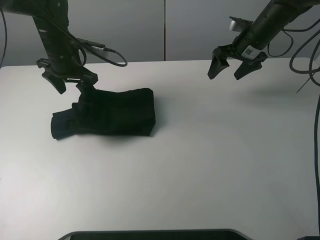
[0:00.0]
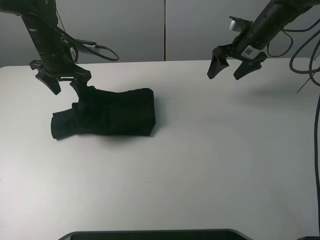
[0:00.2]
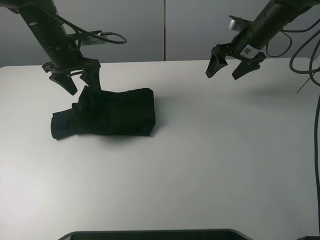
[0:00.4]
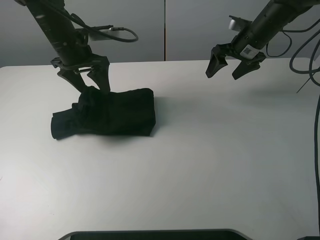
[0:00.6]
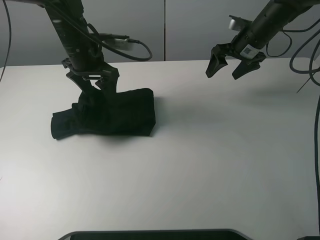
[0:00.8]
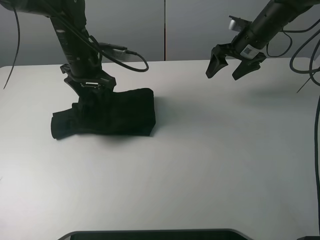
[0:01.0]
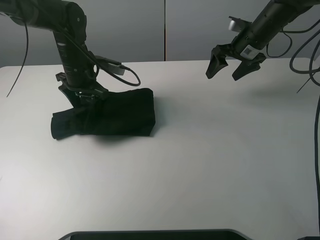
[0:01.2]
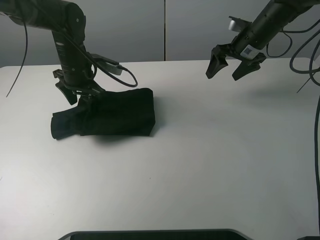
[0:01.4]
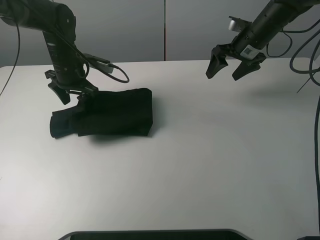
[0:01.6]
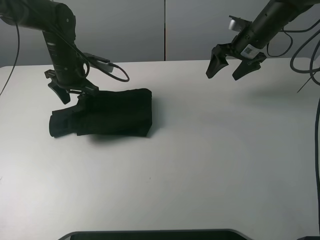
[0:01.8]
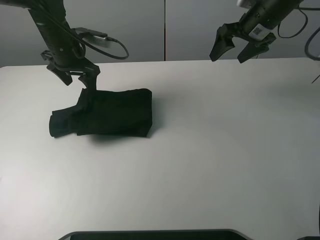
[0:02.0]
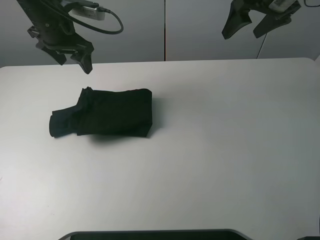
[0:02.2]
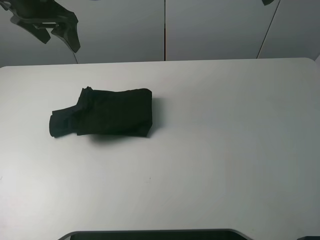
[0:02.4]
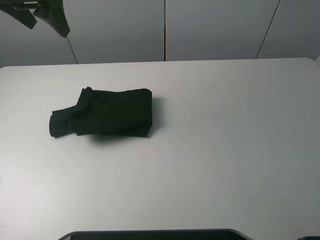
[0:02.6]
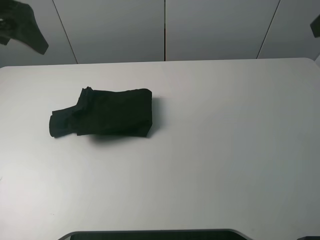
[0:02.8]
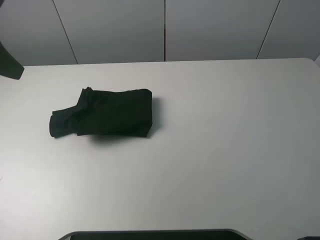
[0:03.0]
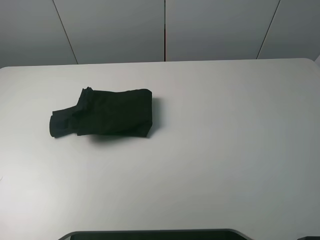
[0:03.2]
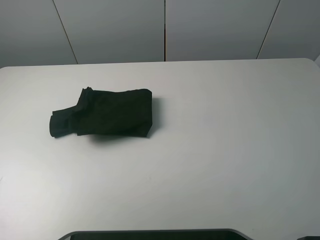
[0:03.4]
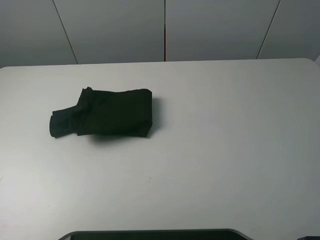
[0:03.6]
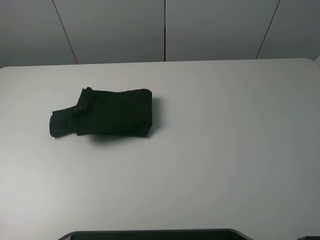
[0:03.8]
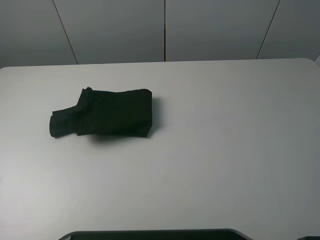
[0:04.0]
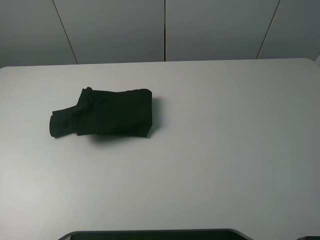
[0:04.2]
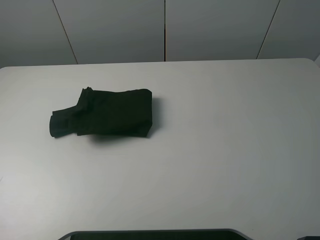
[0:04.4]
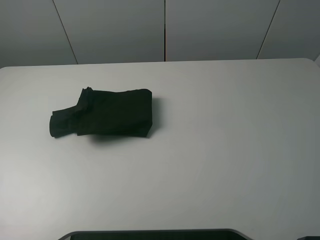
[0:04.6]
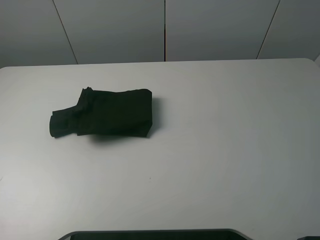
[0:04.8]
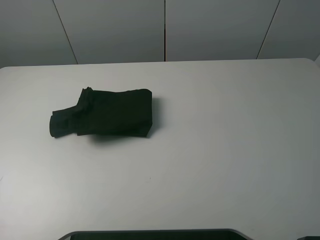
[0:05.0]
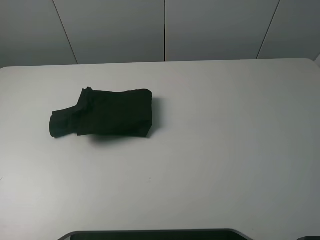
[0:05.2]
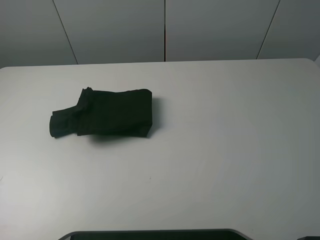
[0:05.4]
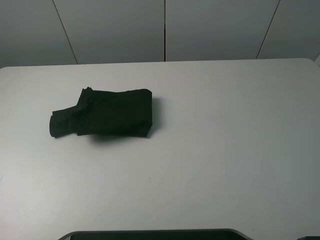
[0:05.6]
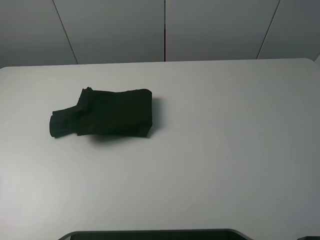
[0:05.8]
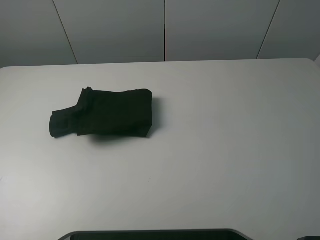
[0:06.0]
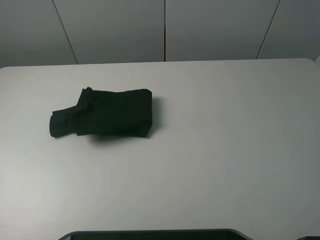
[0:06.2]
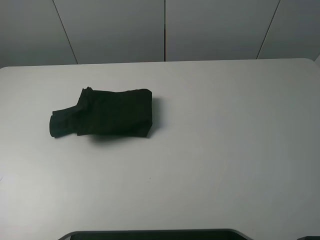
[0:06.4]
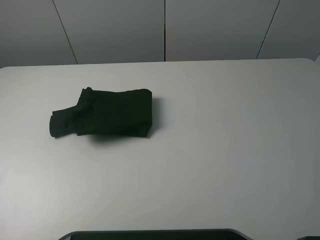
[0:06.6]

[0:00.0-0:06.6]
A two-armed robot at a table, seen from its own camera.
Task of the whole recording: fold the clothes on the table.
Step, 0:00.0 to 0:02.0: Use the left gripper to tidy up the clothes.
0:01.6 to 0:03.2: The right gripper travels backward and upward by about 40 cm; the left gripper heads backward, upward and to the left, covering some 40 cm.
0:03.2 to 0:05.0: The left gripper goes approximately 10 cm backward.

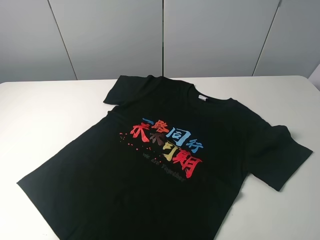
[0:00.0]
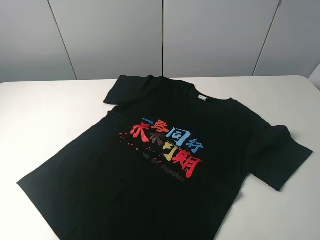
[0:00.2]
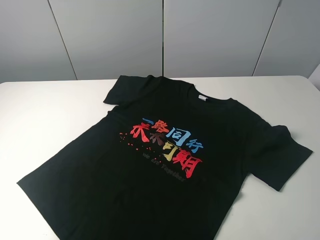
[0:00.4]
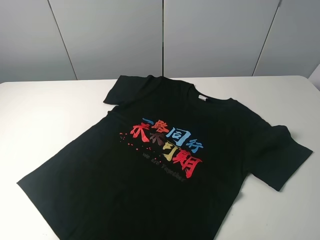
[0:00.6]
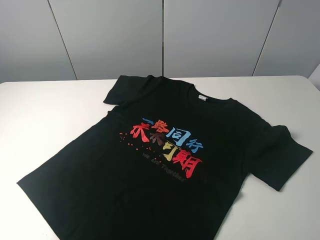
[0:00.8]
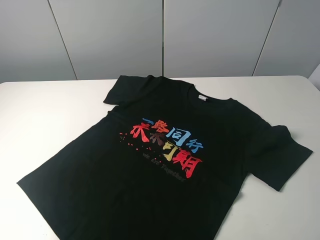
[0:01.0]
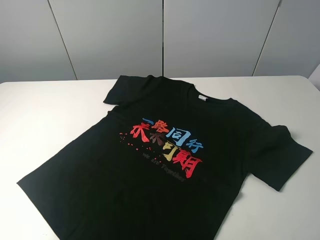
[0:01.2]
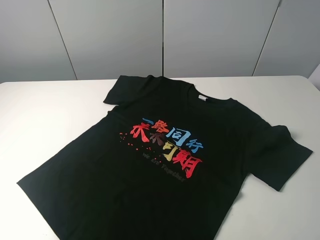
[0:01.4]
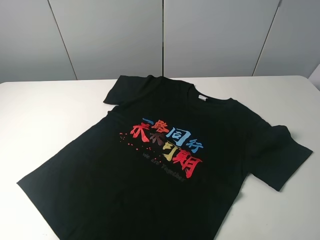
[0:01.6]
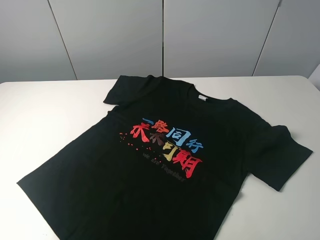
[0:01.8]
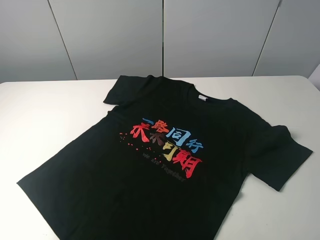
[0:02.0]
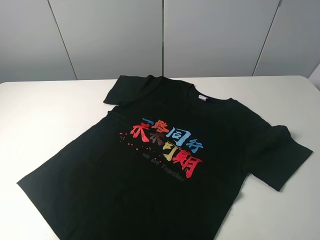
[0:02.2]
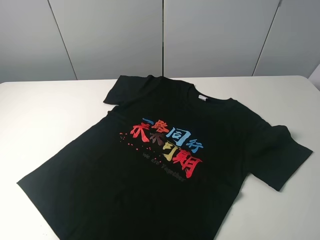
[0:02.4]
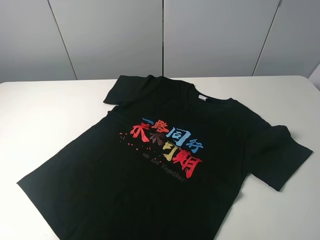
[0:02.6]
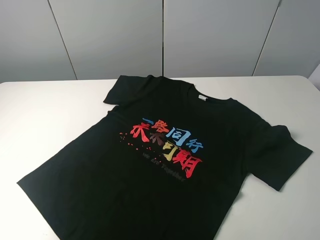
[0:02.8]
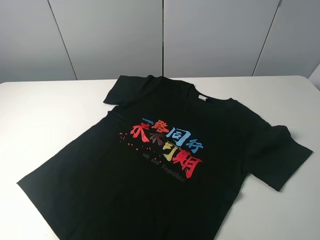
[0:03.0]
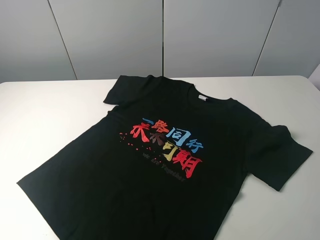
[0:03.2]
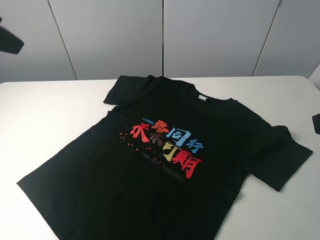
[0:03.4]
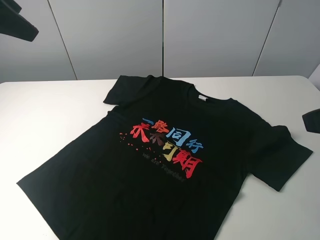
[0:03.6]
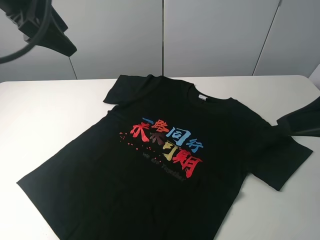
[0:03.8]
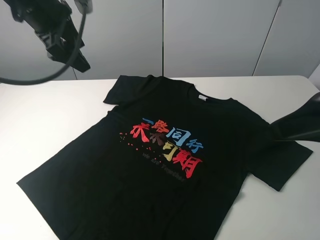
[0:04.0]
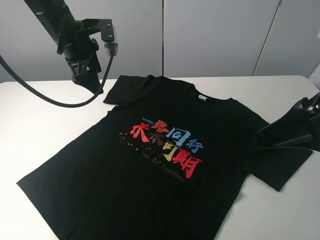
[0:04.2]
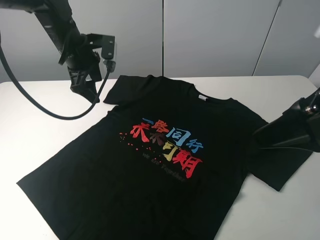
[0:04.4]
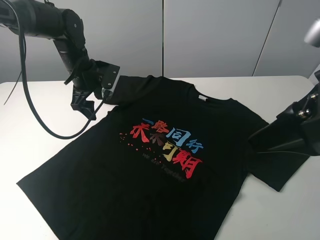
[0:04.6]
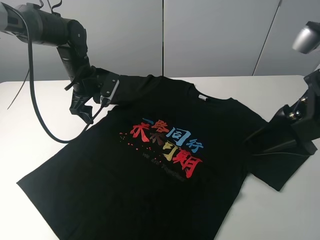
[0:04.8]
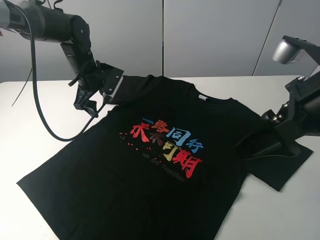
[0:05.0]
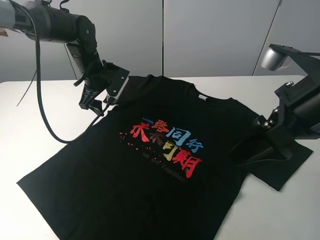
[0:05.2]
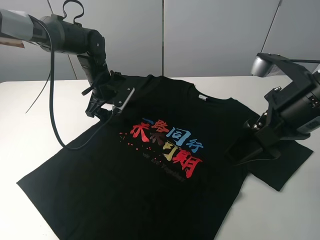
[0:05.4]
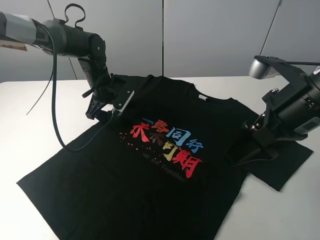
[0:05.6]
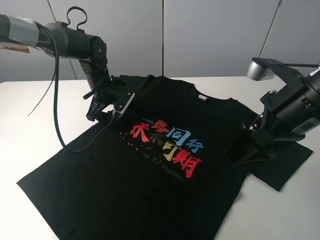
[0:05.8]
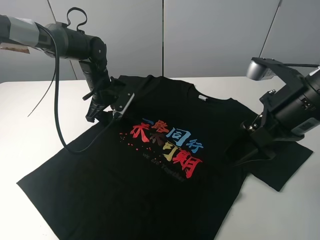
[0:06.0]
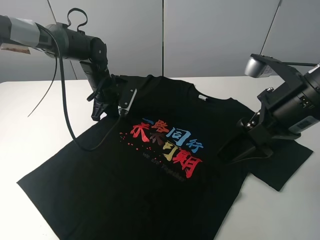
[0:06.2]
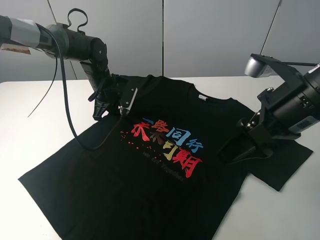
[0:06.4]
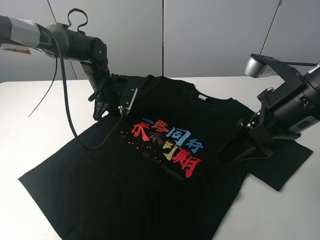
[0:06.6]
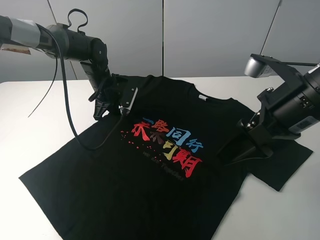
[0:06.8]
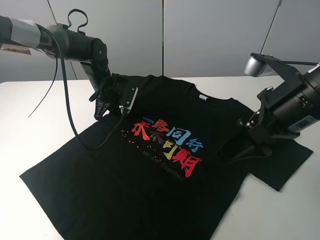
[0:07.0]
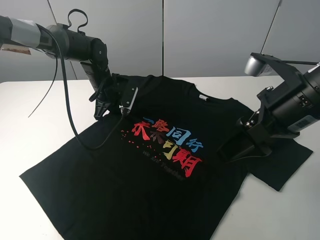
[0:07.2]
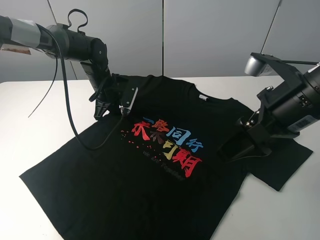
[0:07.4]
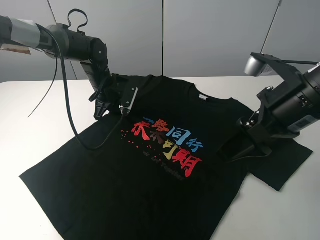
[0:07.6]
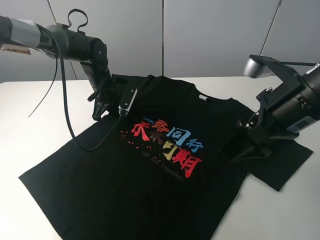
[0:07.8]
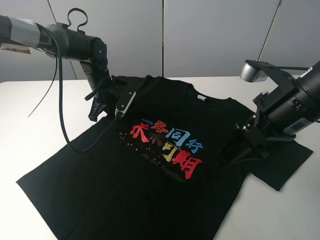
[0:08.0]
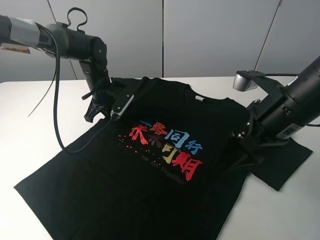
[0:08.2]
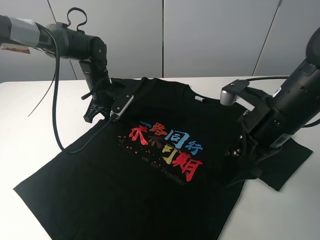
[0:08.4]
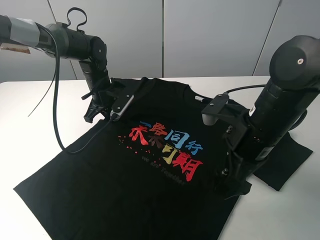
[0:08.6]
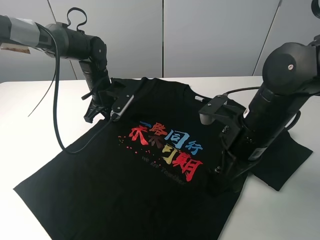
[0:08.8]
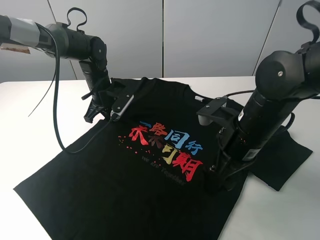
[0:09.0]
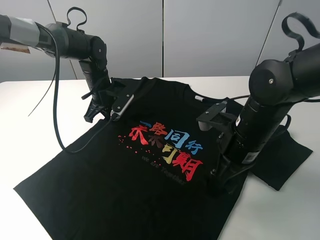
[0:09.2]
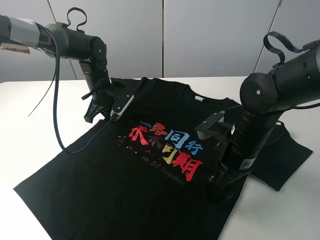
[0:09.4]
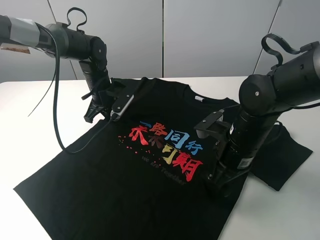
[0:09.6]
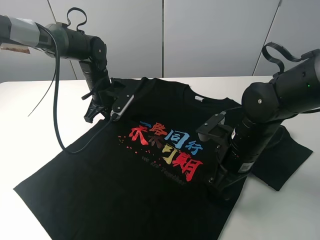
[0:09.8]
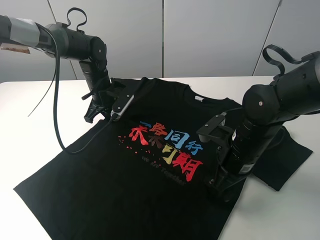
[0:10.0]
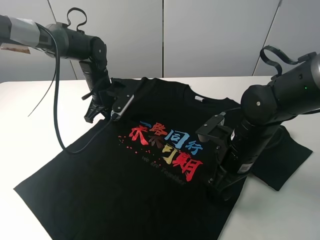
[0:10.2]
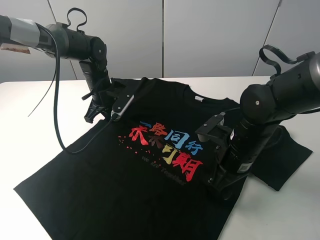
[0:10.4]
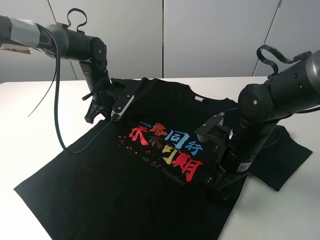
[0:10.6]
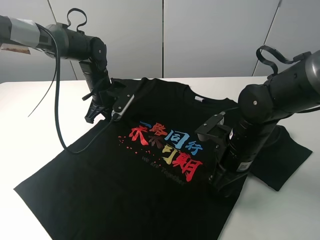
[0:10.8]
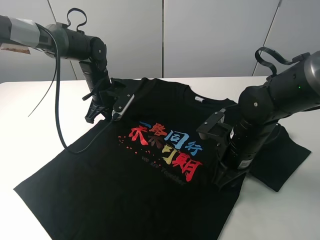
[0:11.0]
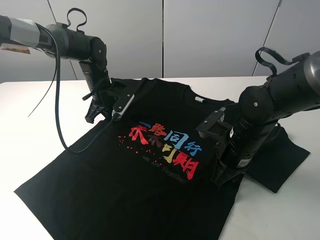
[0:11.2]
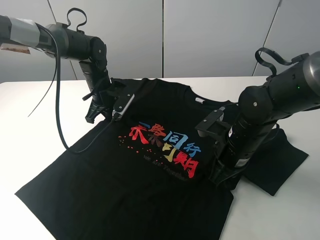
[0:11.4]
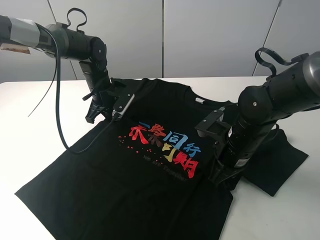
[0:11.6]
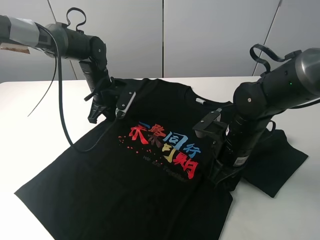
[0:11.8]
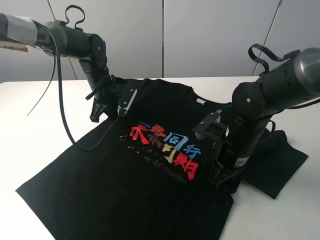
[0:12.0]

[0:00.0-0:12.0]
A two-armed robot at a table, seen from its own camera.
Task of the whole recording: fold the clothes on the table.
Step, 0:00.0 to 0:11.6: Lift the black T-shirt with the left gripper.
0:00.0 to 0:01.6: Neither gripper changes place.
0:03.0 to 0:04.4: The left gripper travels forward, downward and to the right by approximately 35 cm. The right gripper is displaced forward by roughly 15 cm.
0:04.4 to 0:06.0: The left gripper travels downward by approximately 10 cm, while the right gripper heads downward, covering about 5 cm.
0:06.0 to 0:07.6: The left gripper closes.
0:07.6 to 0:09.0: The right gripper heads downward, covering about 10 cm.
0:09.0 to 0:10.4: The right gripper goes roughly 5 cm downward.
0:10.4 to 0:12.0: The right gripper closes its fingers.

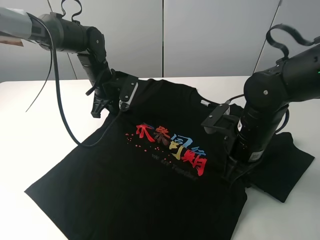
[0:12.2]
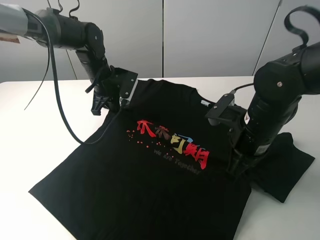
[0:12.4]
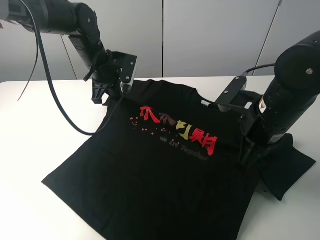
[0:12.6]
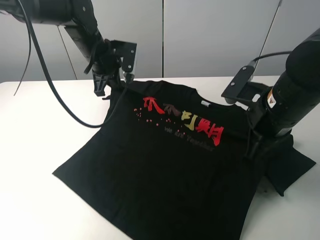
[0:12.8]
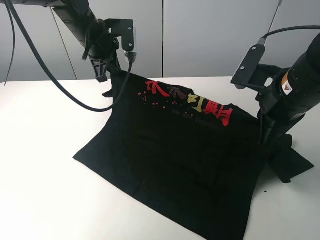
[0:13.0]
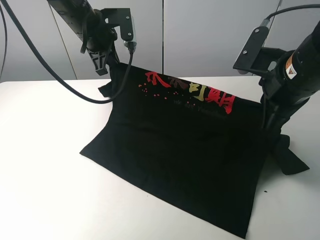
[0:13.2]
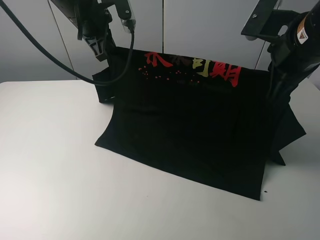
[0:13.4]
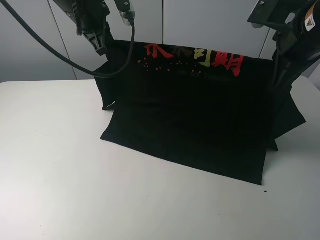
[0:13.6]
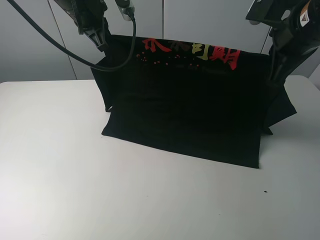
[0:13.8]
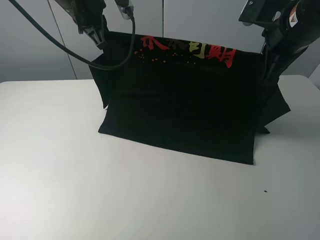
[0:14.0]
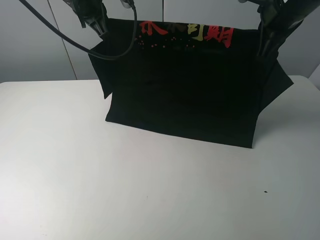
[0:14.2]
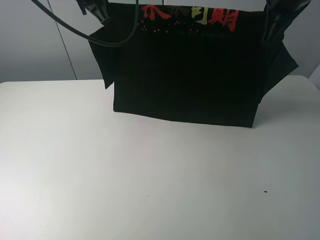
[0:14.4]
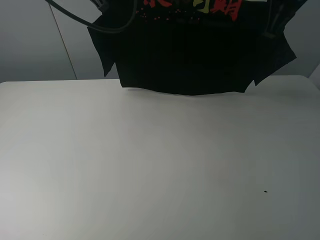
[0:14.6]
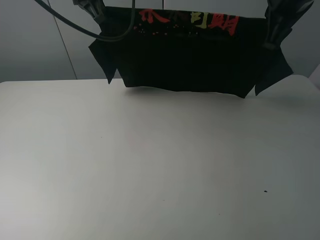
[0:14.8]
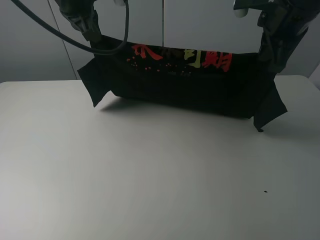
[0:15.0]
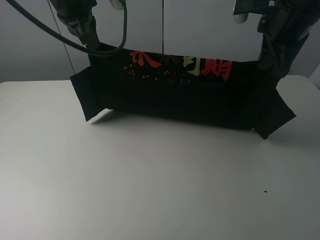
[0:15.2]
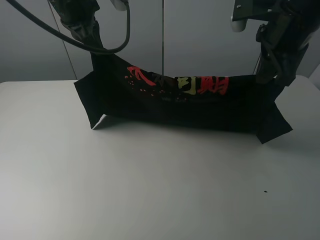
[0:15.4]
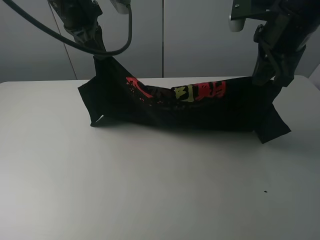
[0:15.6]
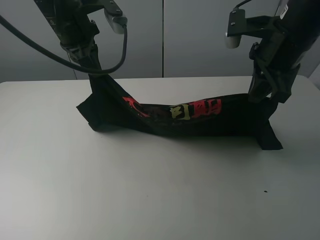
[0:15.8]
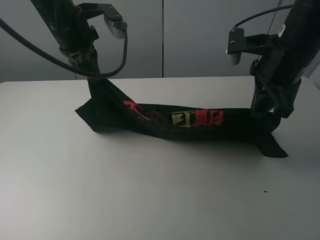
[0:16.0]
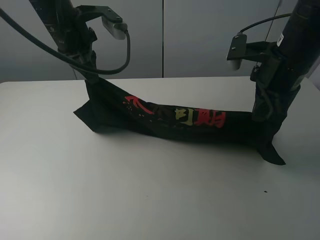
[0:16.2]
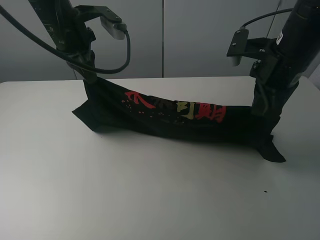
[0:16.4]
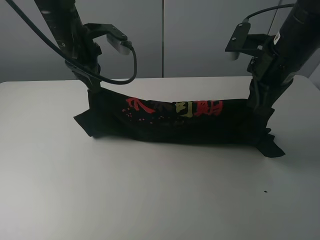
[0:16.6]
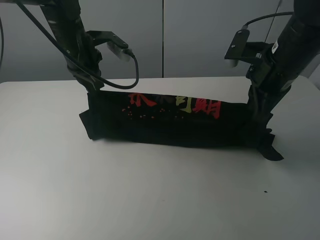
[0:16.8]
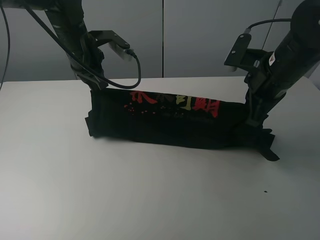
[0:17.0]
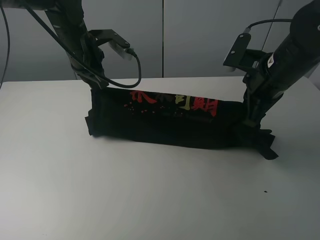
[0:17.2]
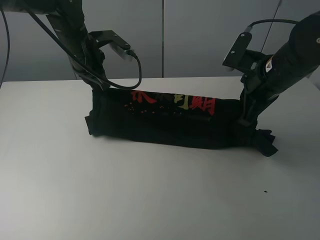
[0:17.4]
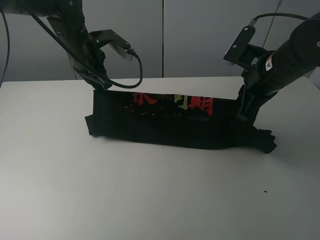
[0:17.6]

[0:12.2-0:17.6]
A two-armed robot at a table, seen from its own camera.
Task of the whole recording: fold the clothes on the table.
0:12.2 to 0:13.6: Both grippers travel together upward, roughly 15 cm.
0:15.0 to 0:16.2: The grippers both shift downward by some 5 cm.
0:16.2 to 0:17.6: The right gripper opens. Meanwhile the left gripper heads downward, covering about 5 cm.
